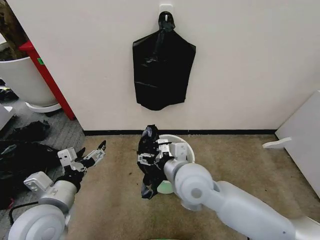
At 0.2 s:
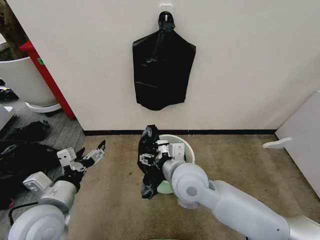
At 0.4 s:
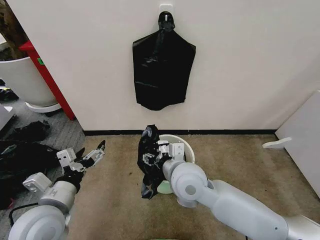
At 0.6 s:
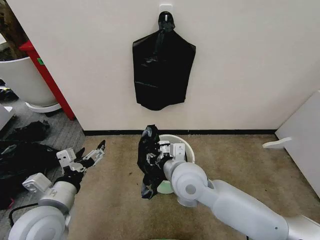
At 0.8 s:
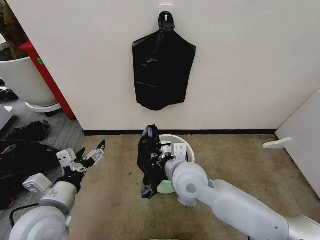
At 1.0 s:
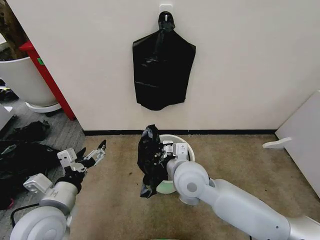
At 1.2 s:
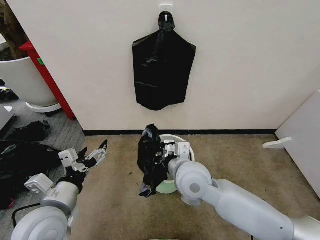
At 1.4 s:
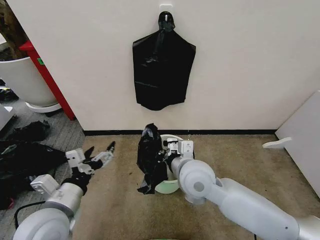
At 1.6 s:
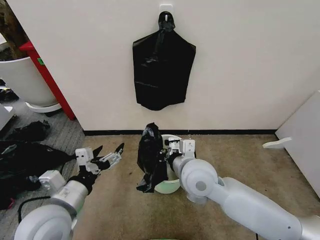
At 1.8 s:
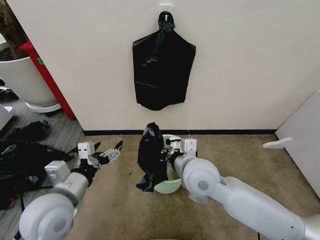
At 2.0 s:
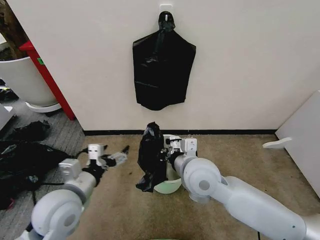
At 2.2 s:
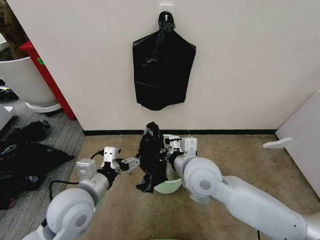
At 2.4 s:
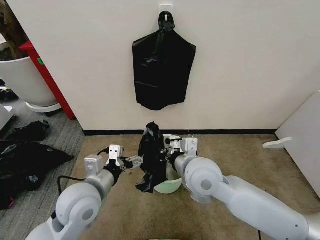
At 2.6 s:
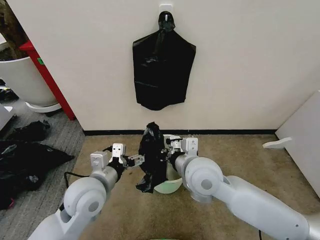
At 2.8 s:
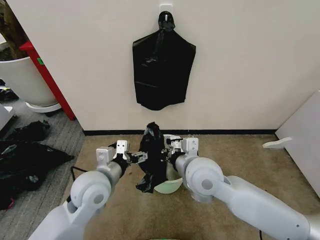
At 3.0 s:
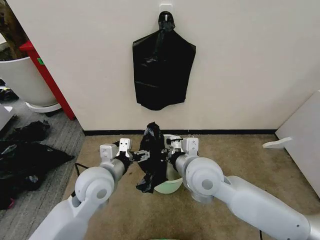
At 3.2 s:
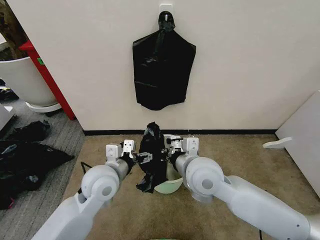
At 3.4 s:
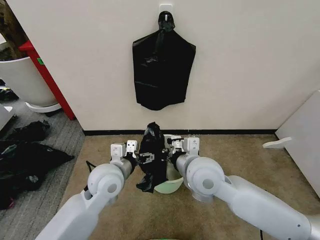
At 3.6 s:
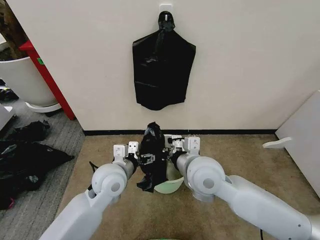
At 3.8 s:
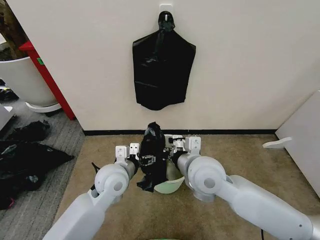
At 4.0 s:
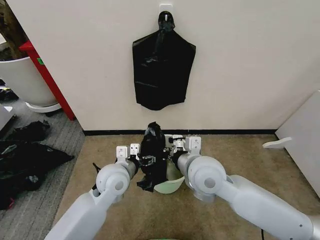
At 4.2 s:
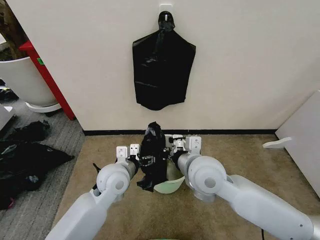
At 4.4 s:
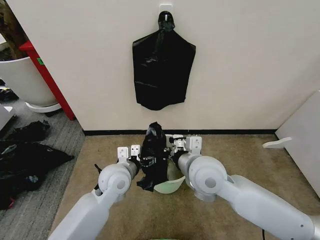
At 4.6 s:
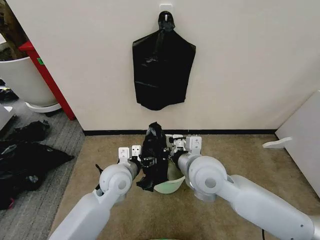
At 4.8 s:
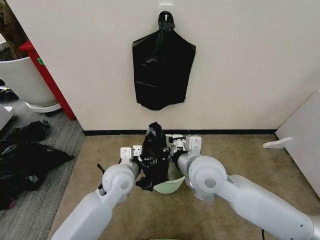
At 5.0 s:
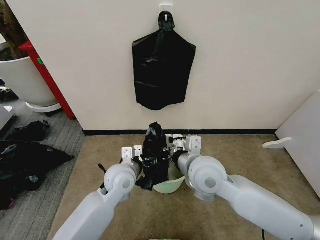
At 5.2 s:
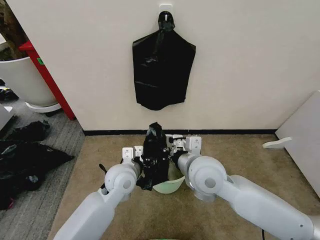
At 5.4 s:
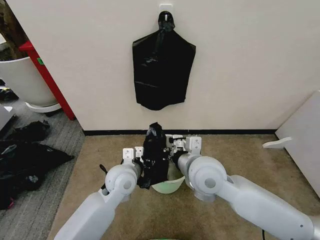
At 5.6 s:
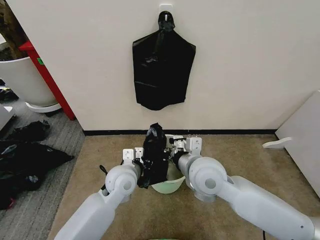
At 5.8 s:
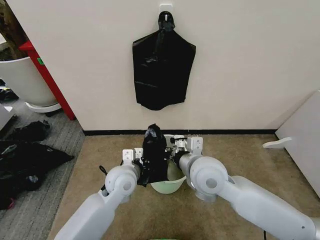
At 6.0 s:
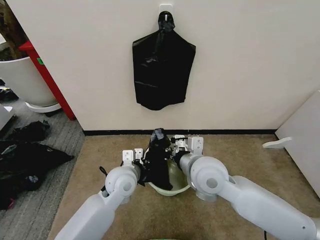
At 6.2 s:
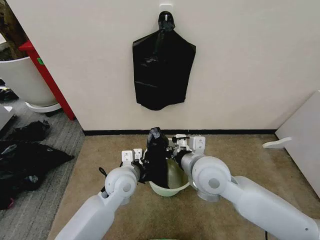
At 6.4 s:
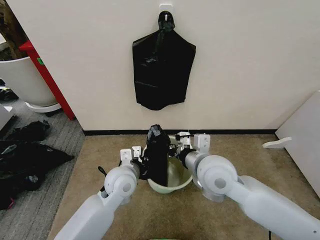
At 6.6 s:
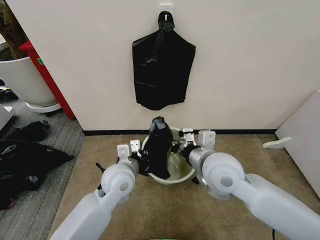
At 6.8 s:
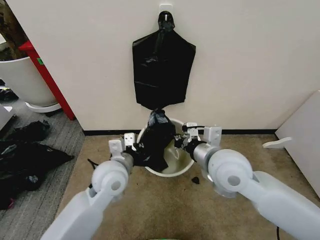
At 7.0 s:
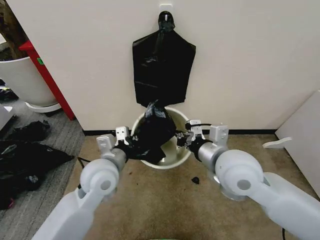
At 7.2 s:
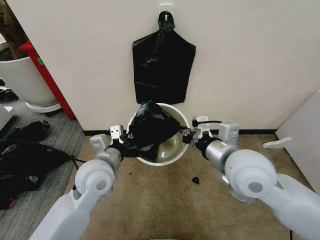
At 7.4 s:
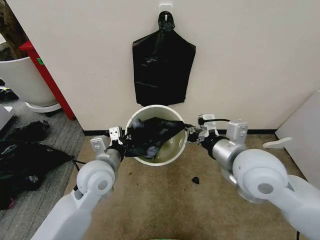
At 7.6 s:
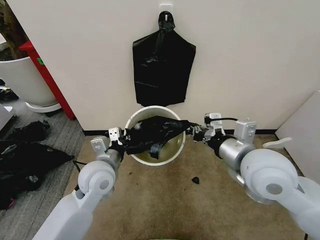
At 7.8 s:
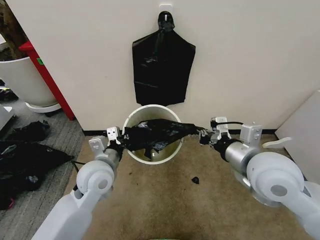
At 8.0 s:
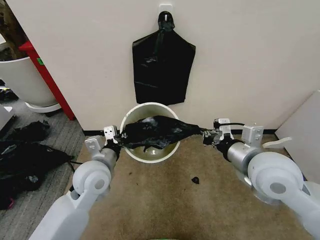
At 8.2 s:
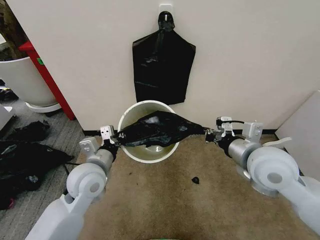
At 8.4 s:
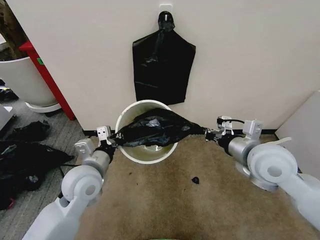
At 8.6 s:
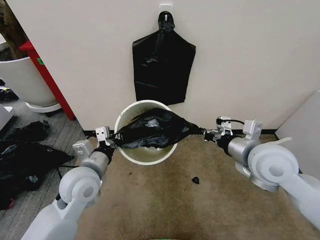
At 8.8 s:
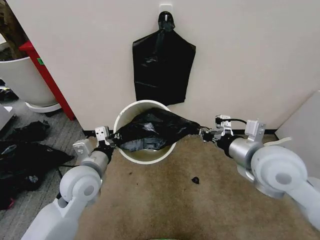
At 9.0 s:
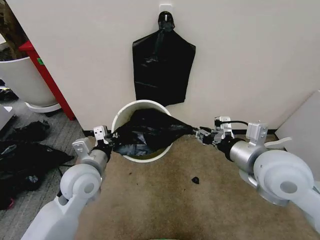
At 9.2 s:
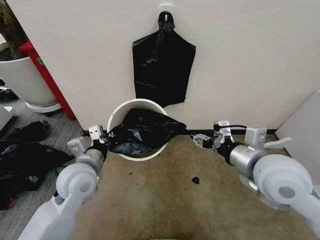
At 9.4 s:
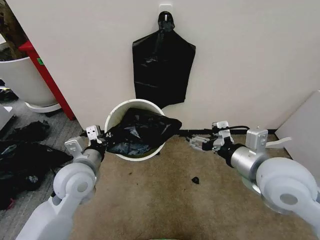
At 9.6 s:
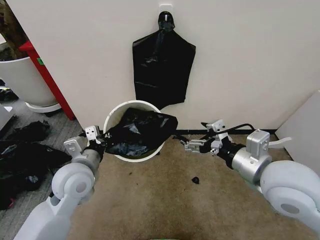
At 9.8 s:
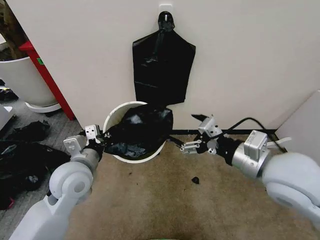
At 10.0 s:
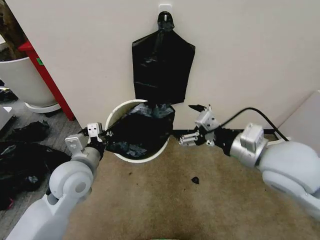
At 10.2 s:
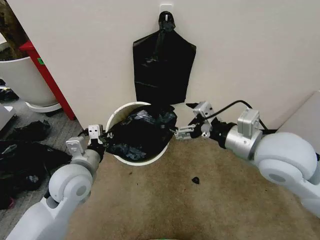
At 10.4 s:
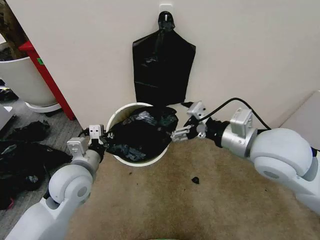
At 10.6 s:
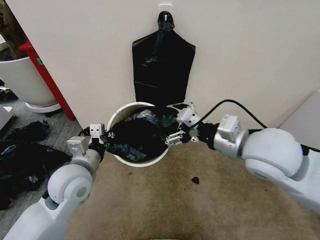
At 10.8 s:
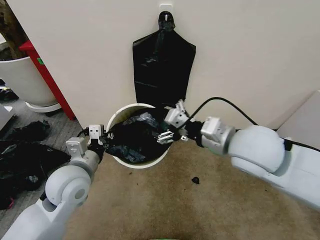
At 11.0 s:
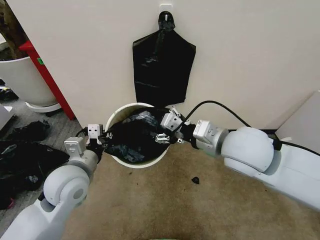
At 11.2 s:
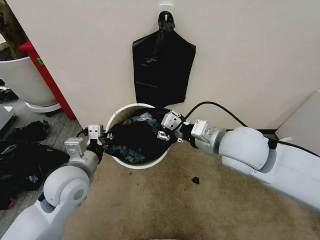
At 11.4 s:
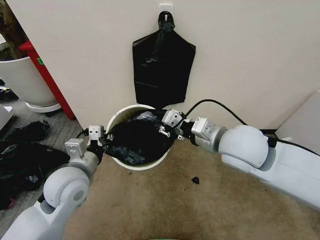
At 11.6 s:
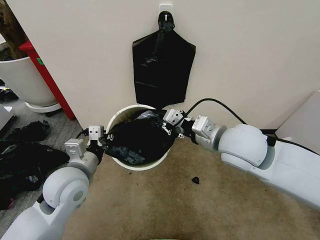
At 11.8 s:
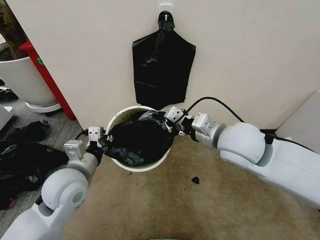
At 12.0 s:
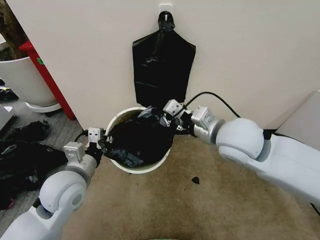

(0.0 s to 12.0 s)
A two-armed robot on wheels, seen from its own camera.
Task of the whole recording: Place the garbage bag over the trash bin.
0.0 s - 1.6 s: The right gripper closes its fingers.
1.6 s - 3.0 s: The left gripper moves forward and to the right, about 10 cm.
3.0 s - 4.4 s: The left gripper shifts by approximately 5 cm.
4.4 s - 6.0 s: The left gripper closes up.
6.0 s - 7.6 s: The right gripper travels to the right and upward by about 10 cm; the left gripper travels upward and to the left by some 10 cm.
7.6 s - 9.0 s: The right gripper opens.
9.0 s - 10.4 s: The right gripper moves some 5 cm, and opens its fingers.
10.4 s - 12.0 s: The right gripper is displaced to the left by about 5 cm, and closes.

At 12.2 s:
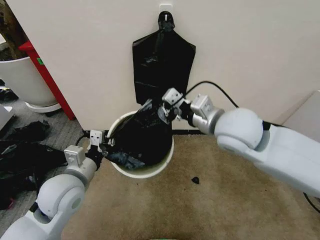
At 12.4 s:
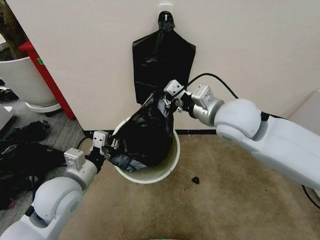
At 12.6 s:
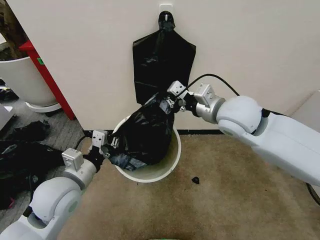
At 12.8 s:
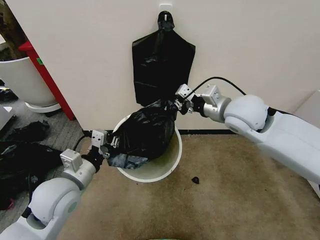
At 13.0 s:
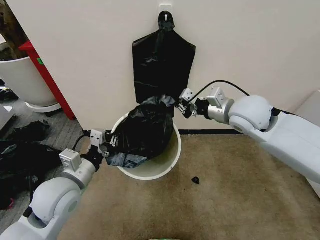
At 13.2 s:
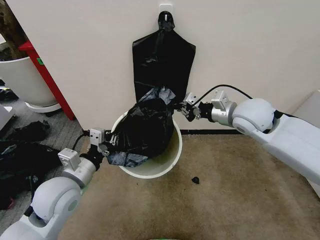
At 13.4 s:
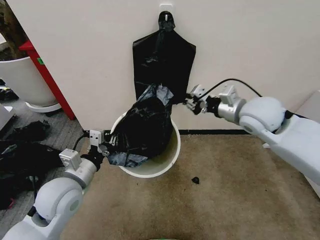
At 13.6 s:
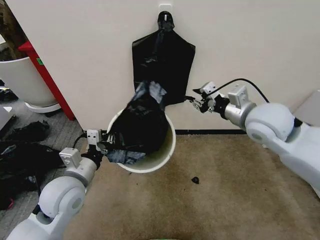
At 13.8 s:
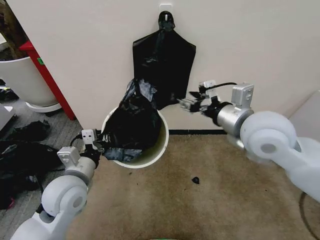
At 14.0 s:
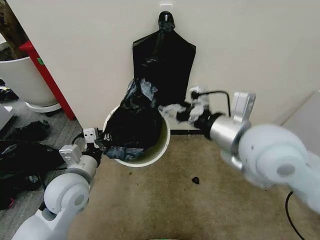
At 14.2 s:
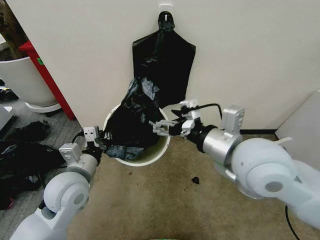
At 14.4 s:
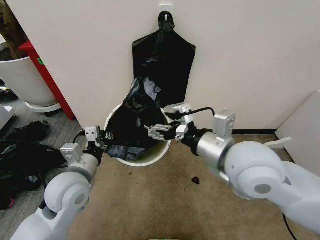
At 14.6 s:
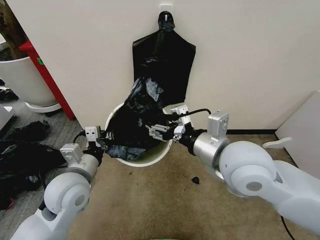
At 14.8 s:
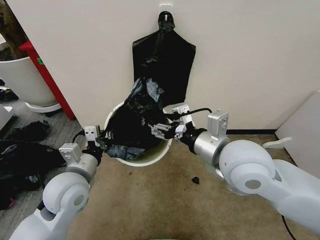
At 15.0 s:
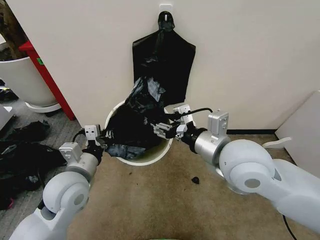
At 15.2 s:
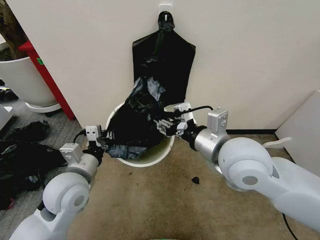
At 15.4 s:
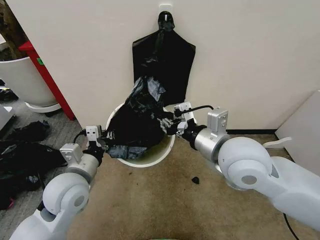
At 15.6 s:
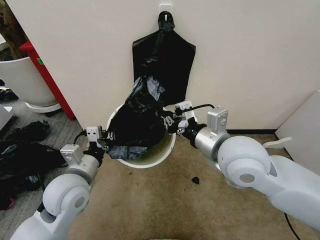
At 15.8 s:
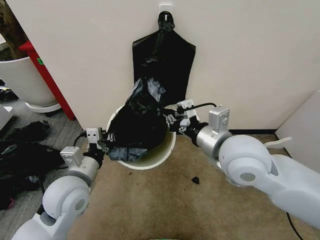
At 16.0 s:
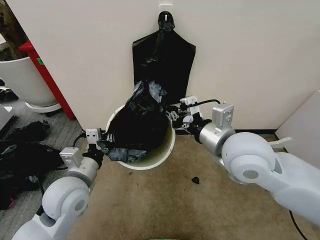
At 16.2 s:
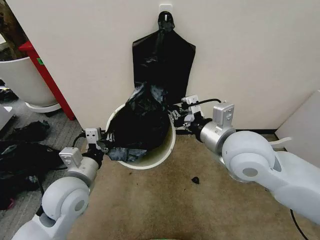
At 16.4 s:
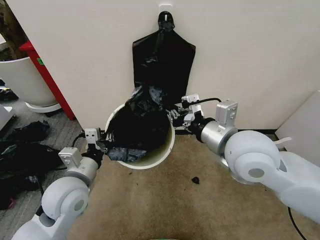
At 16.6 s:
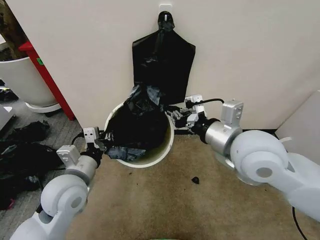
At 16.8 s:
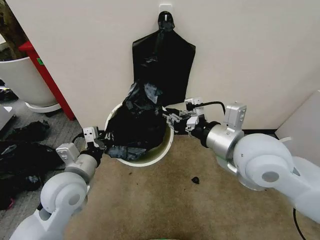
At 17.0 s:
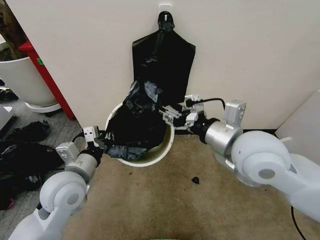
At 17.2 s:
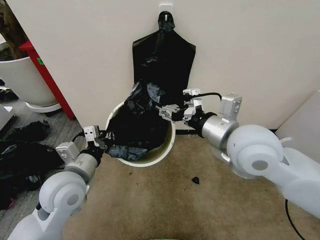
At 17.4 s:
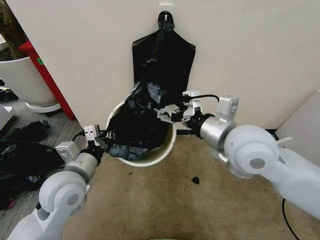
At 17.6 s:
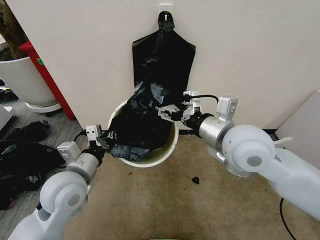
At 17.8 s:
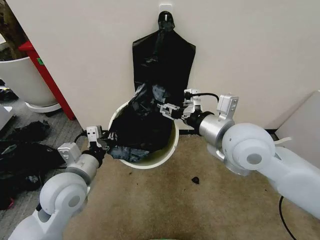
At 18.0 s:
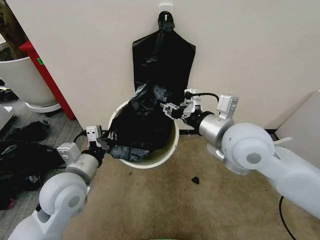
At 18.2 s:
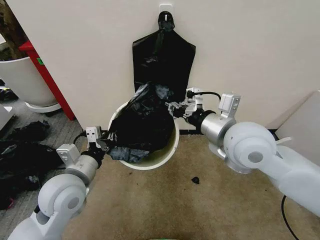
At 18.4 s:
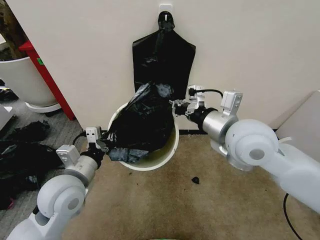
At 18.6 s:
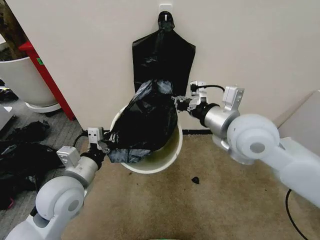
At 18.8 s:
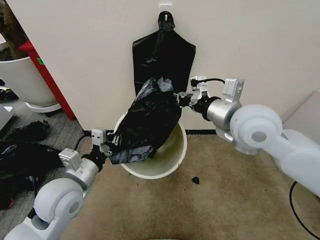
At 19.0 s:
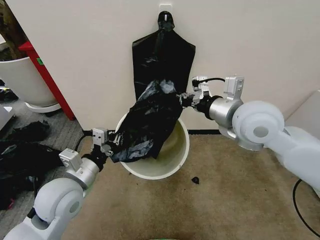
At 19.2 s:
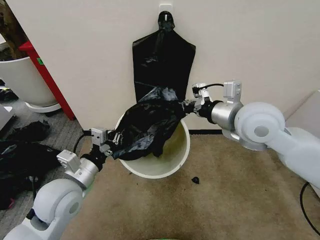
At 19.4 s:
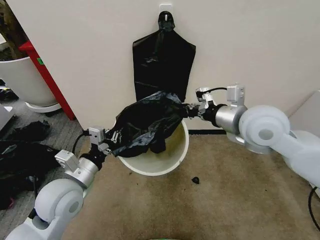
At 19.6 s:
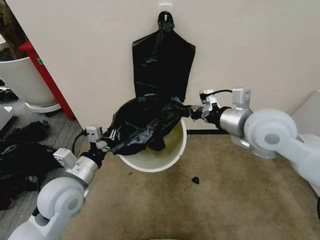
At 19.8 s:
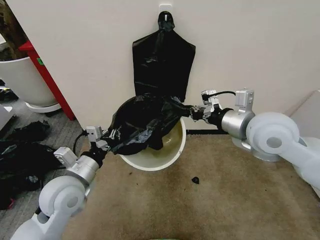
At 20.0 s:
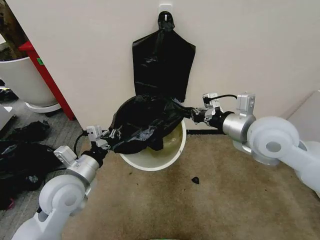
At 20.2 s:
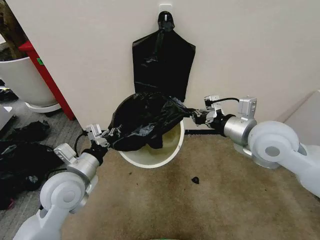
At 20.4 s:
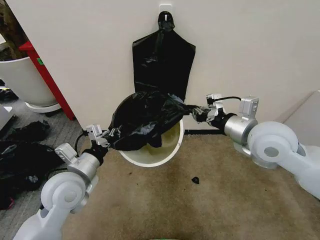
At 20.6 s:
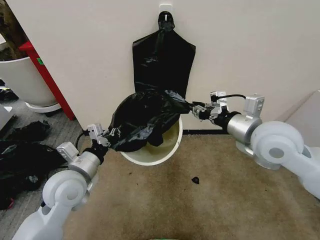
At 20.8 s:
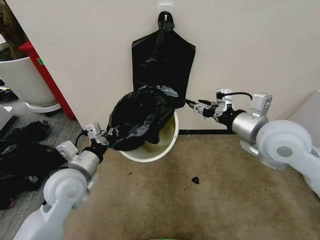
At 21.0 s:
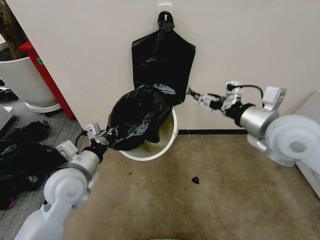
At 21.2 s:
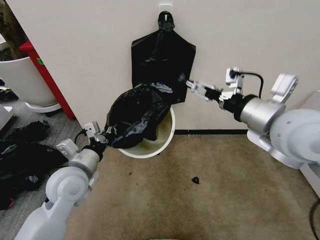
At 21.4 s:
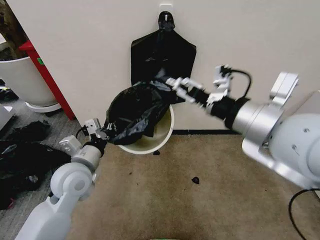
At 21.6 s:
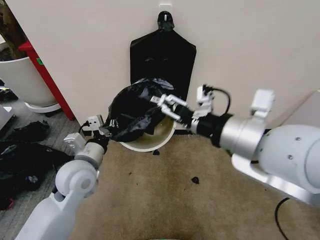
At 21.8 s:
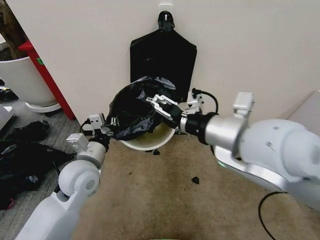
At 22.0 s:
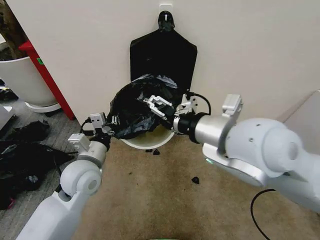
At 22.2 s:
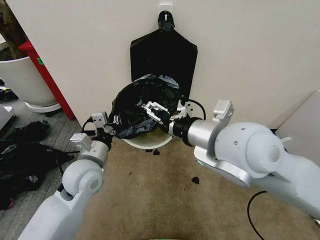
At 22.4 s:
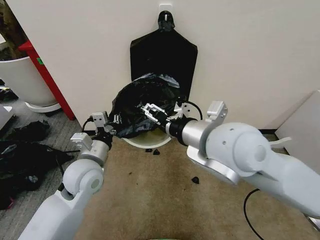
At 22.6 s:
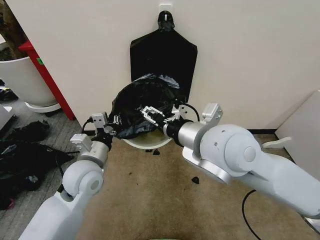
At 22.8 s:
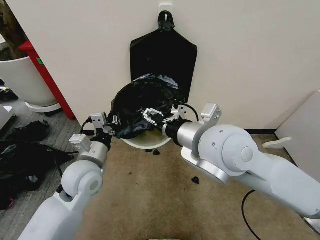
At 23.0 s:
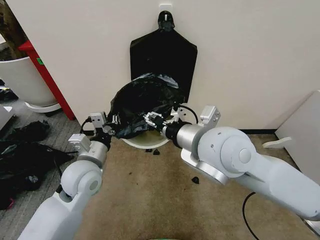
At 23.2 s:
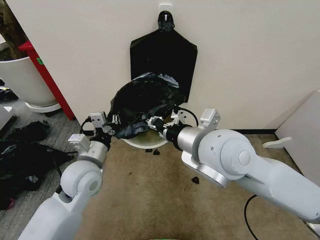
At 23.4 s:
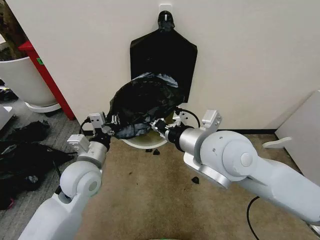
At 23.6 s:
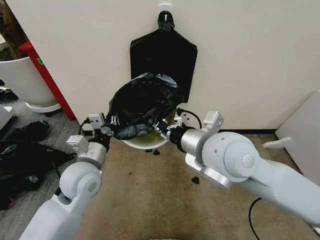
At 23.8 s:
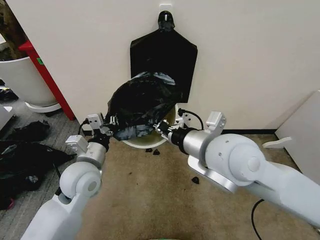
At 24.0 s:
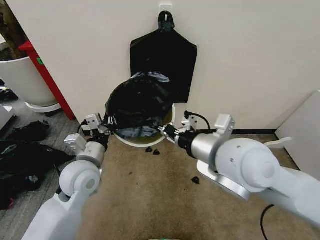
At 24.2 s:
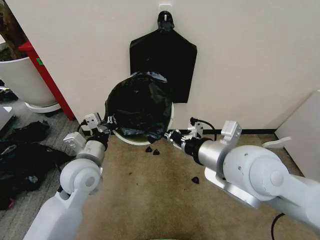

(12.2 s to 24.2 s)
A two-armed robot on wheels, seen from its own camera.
Task of the whole recording: Place the garbage bag over the trash bin.
12.2 s - 13.8 s: The right gripper reaches approximately 10 cm forward, then returns, and opens.
13.8 s - 15.2 s: The right gripper moves to the left, some 5 cm, and opens and closes again.
15.2 s - 16.6 s: There are only small adjustments of the grippers.
16.6 s - 18.2 s: The right gripper opens, then closes again.
18.2 s - 19.8 s: The right gripper shifts approximately 5 cm to the right.
19.8 s - 21.2 s: The right gripper ends up about 5 cm from where it was, and opens its fingers.
21.2 s - 22.6 s: The right gripper moves to the left, about 15 cm.
22.6 s - 24.2 s: The right gripper shifts by about 5 cm, and closes up.
